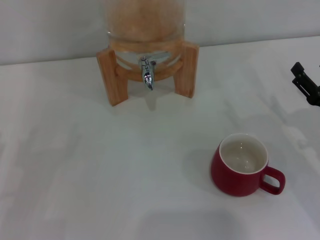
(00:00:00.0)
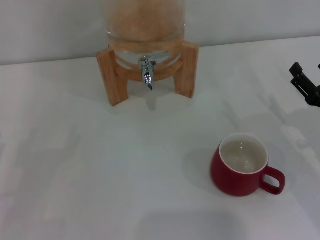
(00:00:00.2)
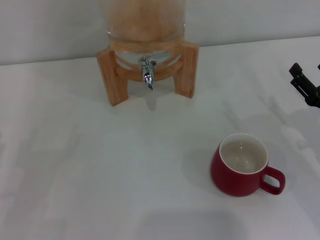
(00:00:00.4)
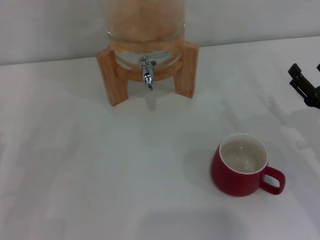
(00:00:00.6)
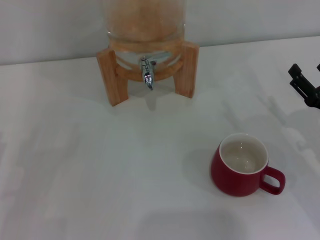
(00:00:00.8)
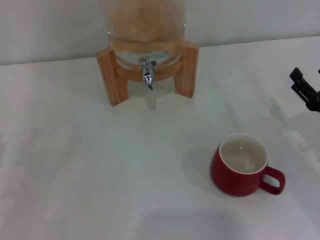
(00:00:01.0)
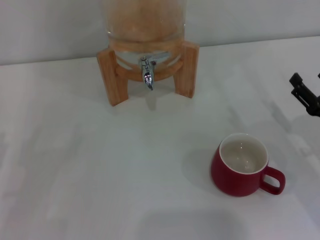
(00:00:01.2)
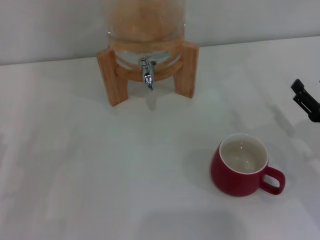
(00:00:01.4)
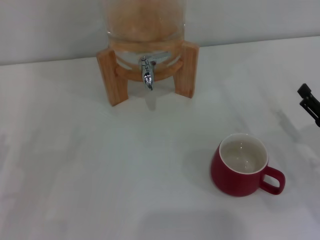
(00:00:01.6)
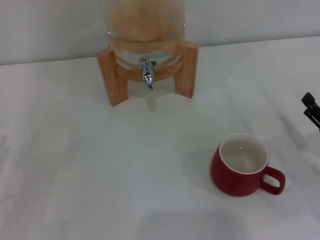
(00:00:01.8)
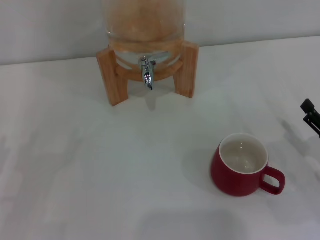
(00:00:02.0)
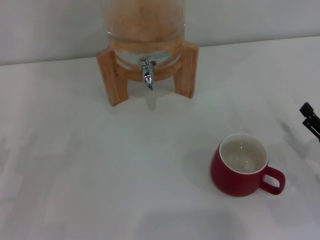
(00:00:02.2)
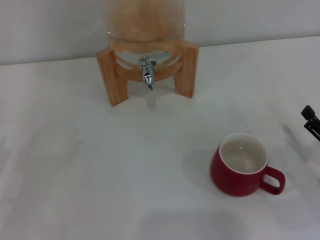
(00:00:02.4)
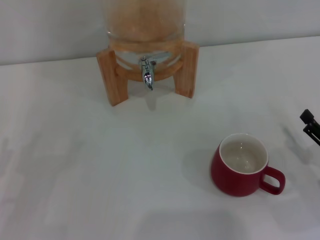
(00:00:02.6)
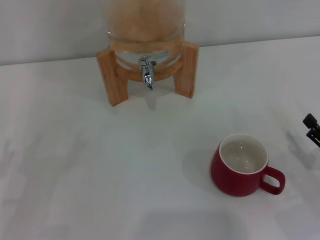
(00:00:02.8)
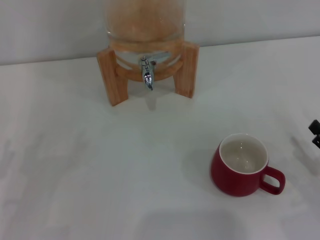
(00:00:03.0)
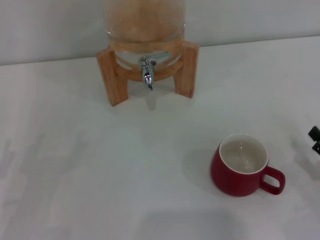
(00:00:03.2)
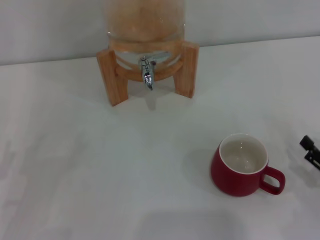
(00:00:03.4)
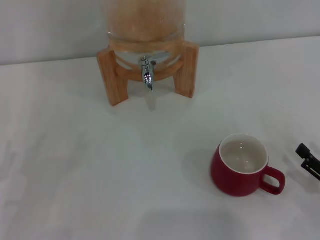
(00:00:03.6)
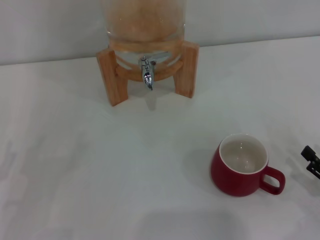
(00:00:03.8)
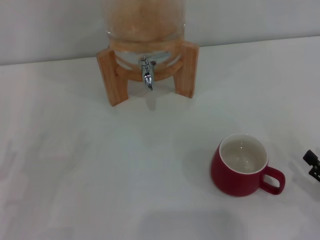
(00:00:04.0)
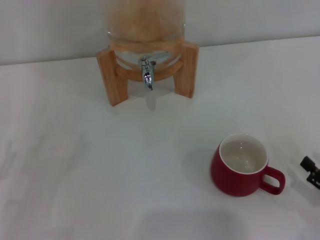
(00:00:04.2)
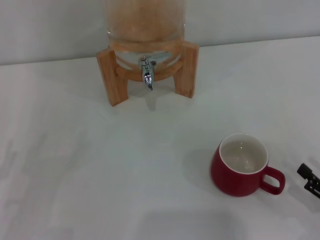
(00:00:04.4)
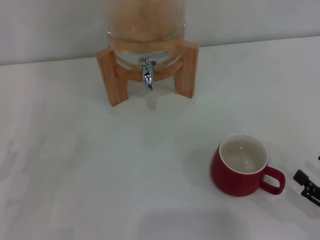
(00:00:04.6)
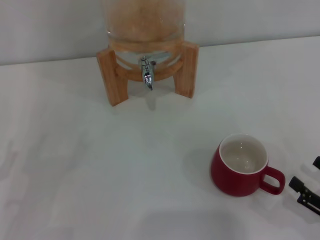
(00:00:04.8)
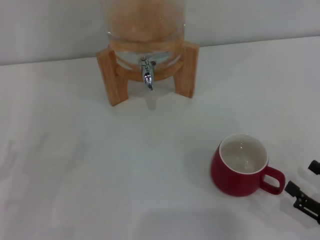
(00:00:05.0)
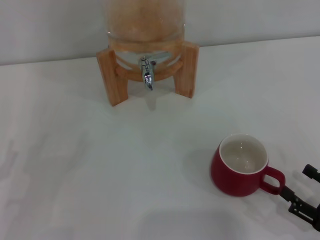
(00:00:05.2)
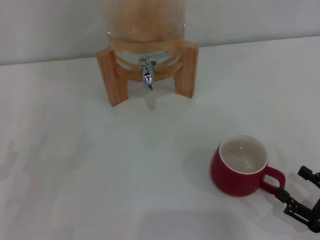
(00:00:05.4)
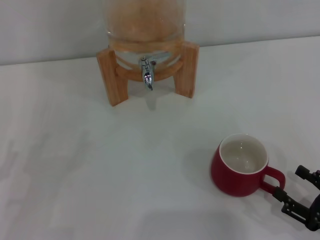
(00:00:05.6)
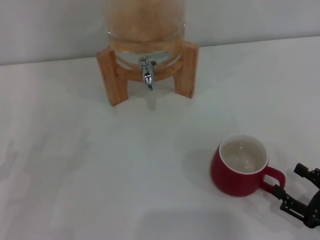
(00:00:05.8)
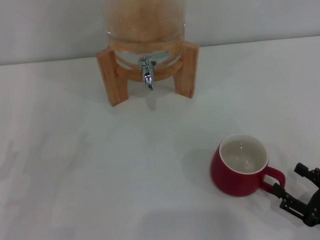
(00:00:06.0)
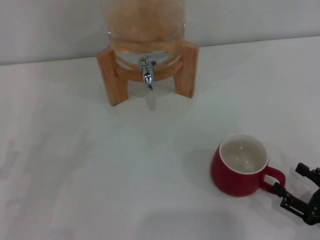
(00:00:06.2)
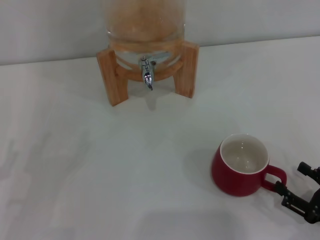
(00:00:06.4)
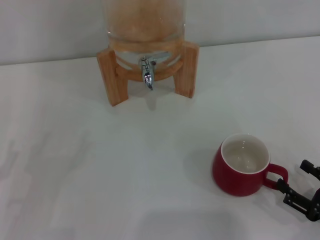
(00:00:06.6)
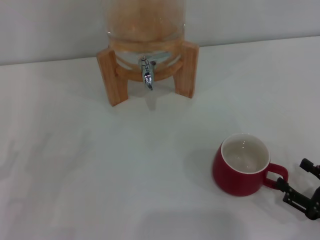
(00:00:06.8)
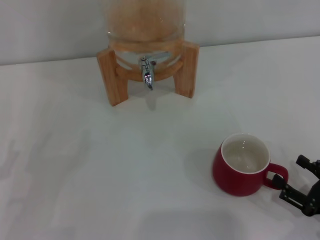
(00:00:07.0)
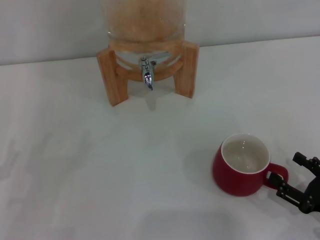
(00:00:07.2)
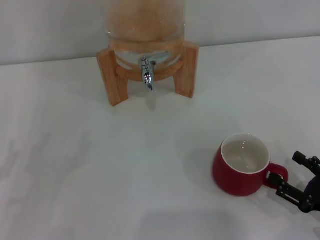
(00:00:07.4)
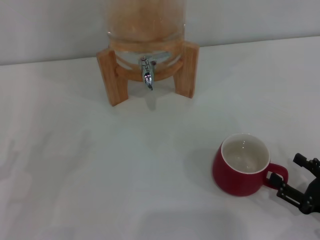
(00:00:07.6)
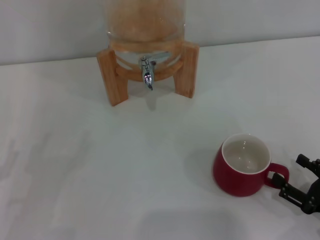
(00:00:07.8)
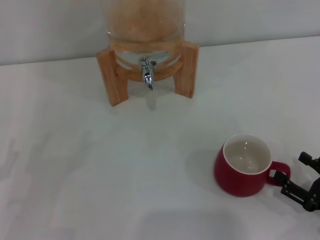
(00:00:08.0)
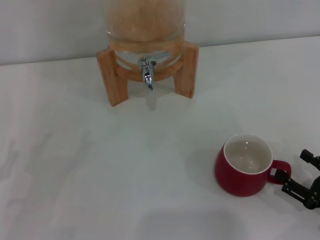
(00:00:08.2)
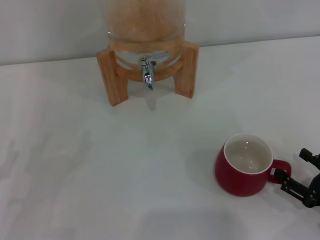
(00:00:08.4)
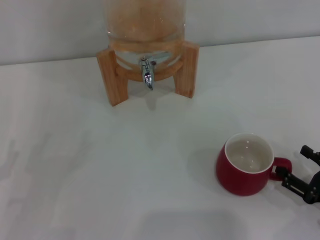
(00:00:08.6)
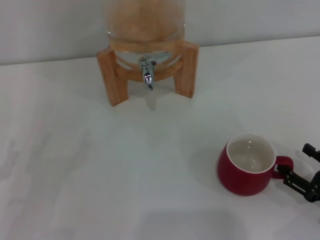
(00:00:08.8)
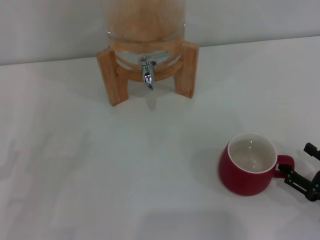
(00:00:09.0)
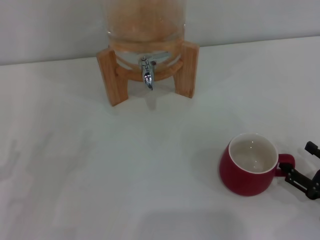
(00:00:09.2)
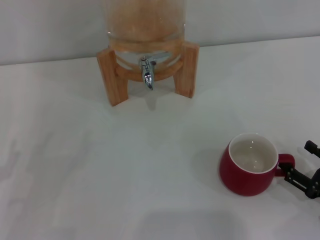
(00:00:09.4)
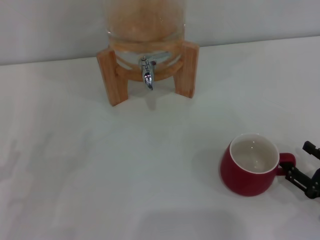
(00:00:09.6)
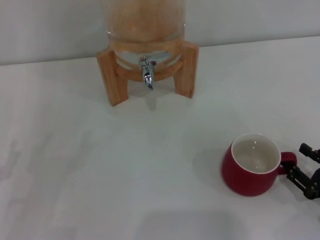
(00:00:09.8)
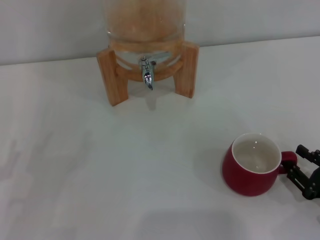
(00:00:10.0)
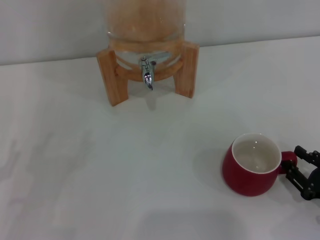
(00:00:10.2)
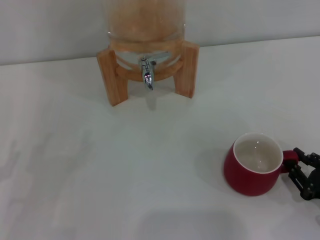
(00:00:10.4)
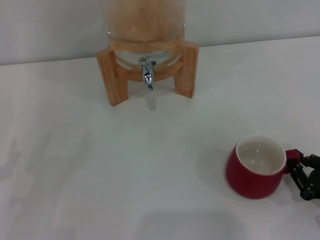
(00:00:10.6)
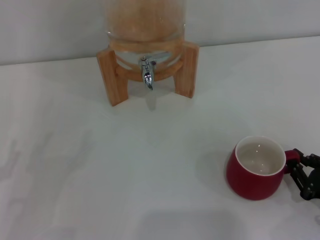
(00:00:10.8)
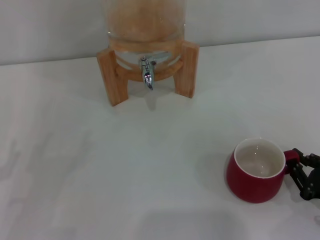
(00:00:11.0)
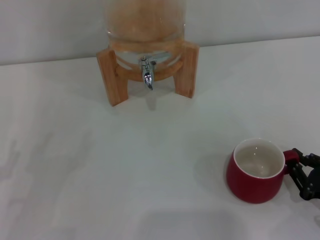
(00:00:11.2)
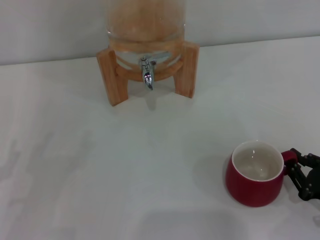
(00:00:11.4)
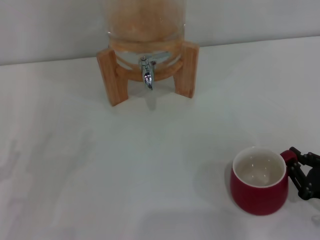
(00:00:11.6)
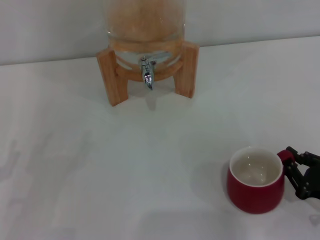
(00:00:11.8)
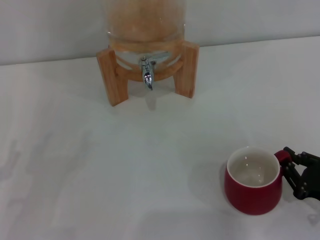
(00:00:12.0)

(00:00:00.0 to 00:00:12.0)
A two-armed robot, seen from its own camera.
Task of the whole recording: the right gripper pick up the red cup and place it horizontally under the faucet, the left gripper turn on the faucet to fill the cup, and then turn off the faucet.
00:00:00.0 - 00:00:01.6: The grippers make only small movements.
00:00:01.6 - 00:00:03.0: The right gripper heads backward, covering some 5 cm.
00:00:03.0 - 00:00:04.4: The grippers make only small movements.
00:00:04.4 - 00:00:09.0: The grippers move only a little.
00:00:09.0 - 00:00:10.4: The right gripper closes up.
00:00:10.4 - 00:00:12.0: The right gripper closes.

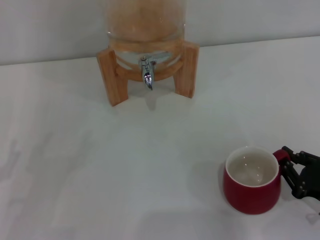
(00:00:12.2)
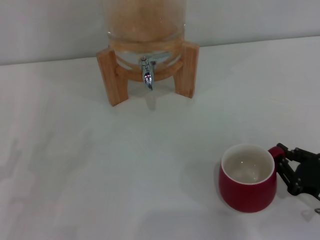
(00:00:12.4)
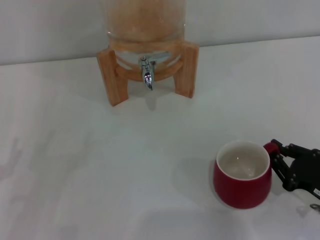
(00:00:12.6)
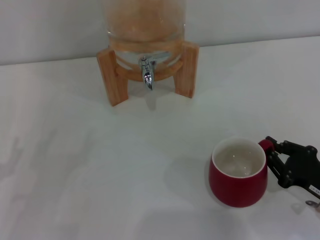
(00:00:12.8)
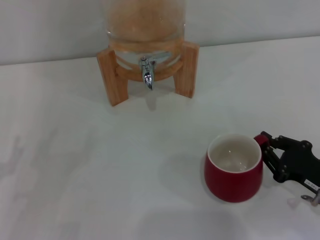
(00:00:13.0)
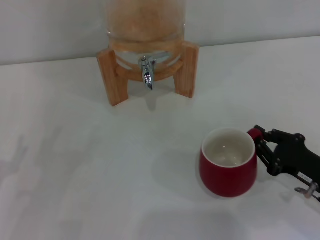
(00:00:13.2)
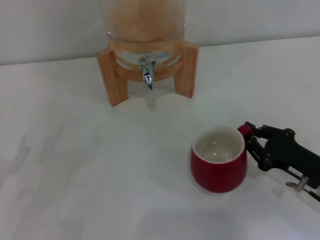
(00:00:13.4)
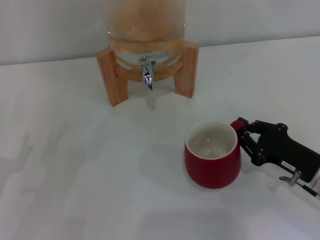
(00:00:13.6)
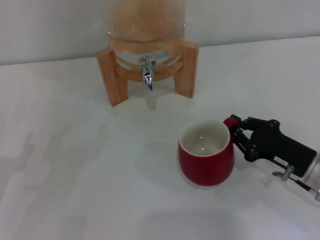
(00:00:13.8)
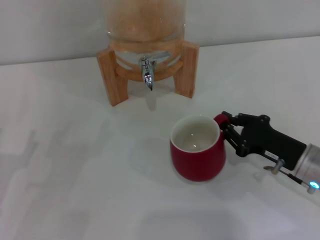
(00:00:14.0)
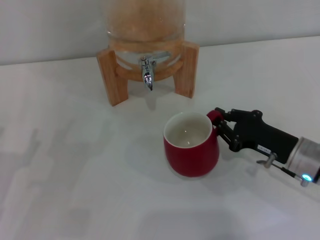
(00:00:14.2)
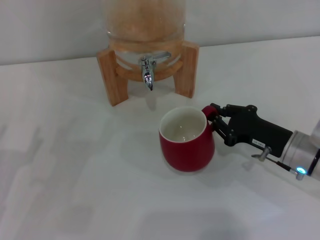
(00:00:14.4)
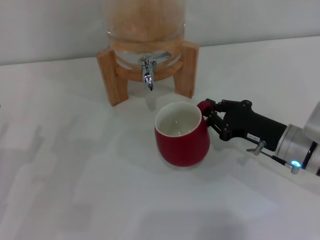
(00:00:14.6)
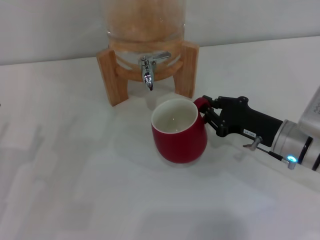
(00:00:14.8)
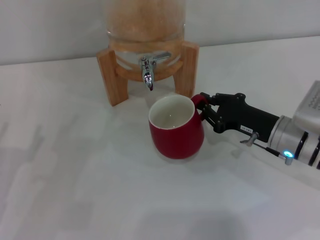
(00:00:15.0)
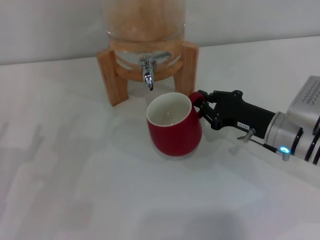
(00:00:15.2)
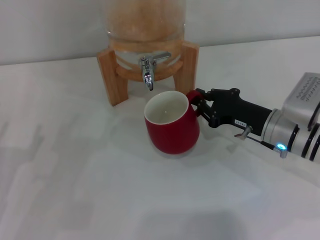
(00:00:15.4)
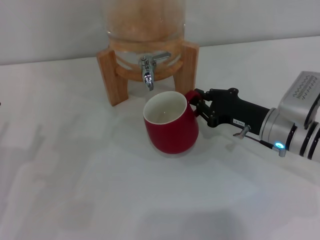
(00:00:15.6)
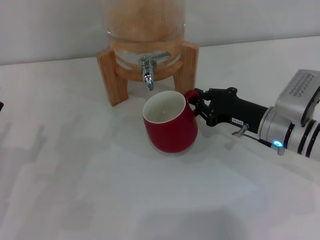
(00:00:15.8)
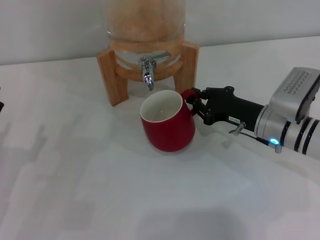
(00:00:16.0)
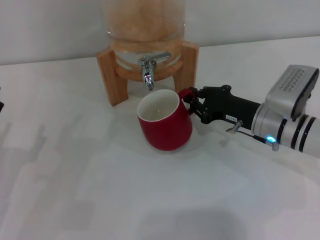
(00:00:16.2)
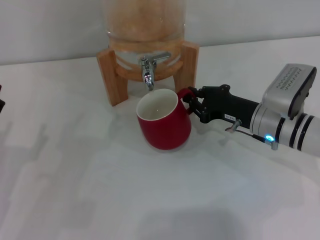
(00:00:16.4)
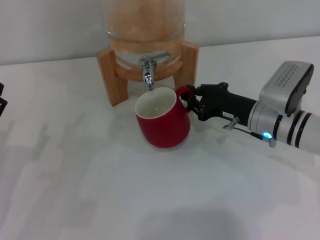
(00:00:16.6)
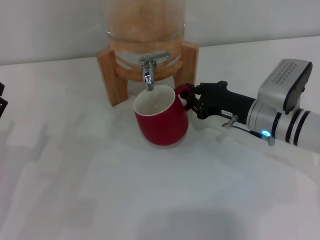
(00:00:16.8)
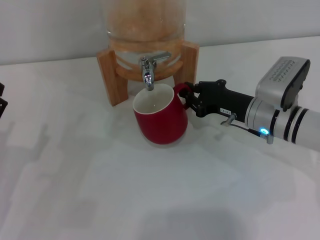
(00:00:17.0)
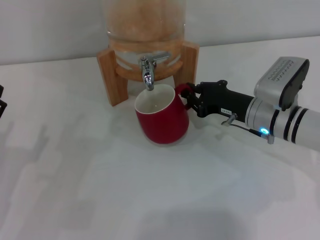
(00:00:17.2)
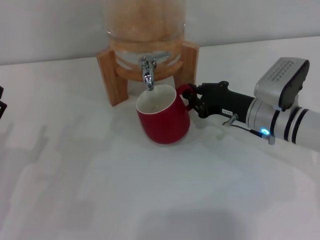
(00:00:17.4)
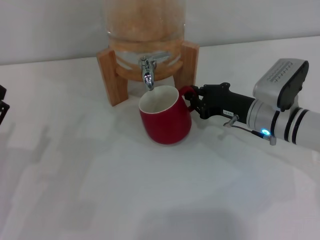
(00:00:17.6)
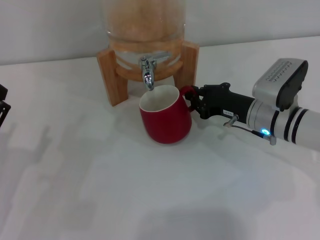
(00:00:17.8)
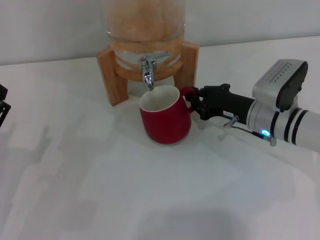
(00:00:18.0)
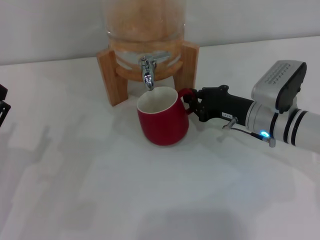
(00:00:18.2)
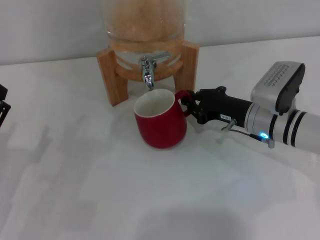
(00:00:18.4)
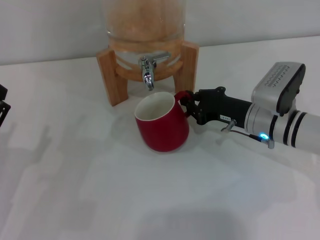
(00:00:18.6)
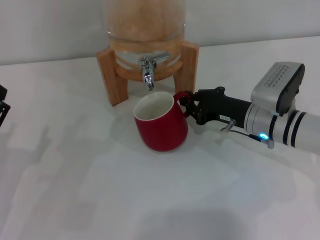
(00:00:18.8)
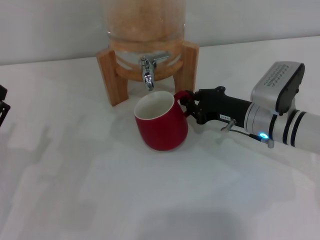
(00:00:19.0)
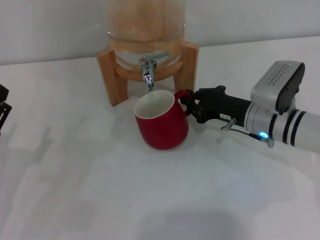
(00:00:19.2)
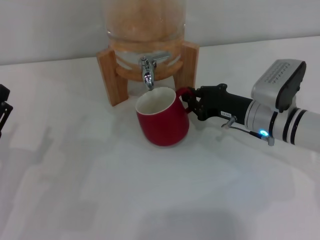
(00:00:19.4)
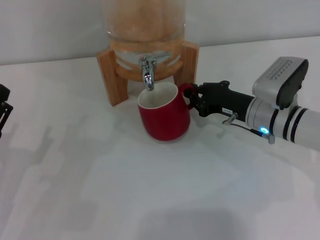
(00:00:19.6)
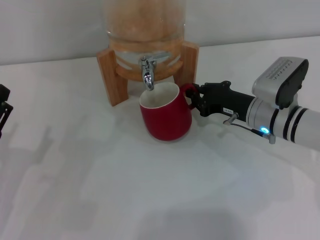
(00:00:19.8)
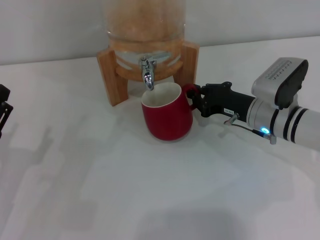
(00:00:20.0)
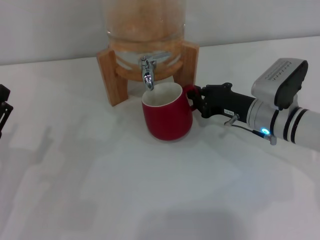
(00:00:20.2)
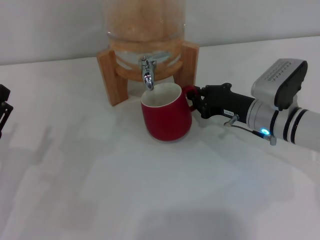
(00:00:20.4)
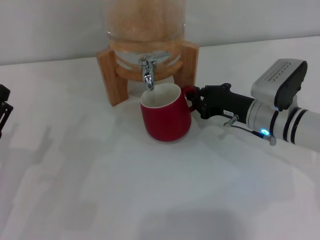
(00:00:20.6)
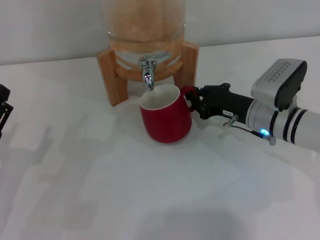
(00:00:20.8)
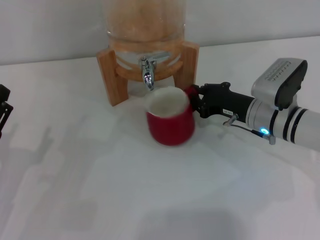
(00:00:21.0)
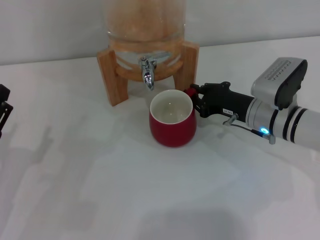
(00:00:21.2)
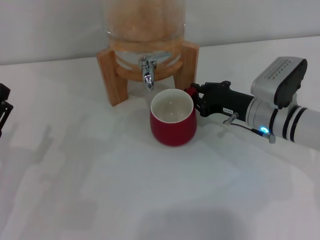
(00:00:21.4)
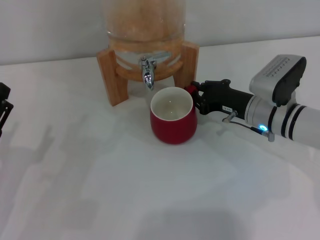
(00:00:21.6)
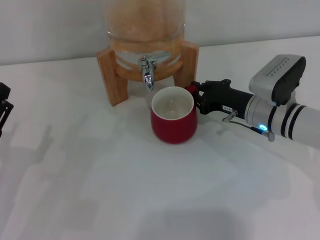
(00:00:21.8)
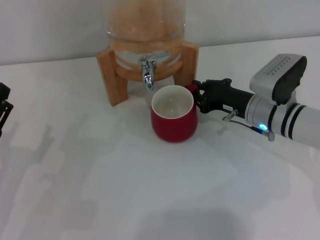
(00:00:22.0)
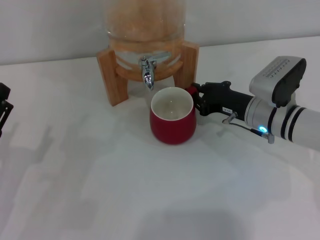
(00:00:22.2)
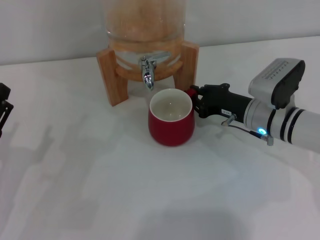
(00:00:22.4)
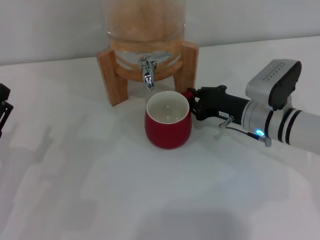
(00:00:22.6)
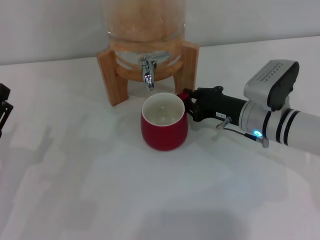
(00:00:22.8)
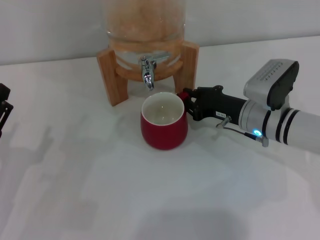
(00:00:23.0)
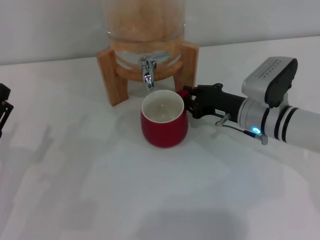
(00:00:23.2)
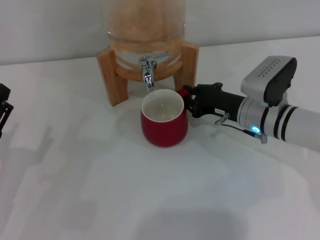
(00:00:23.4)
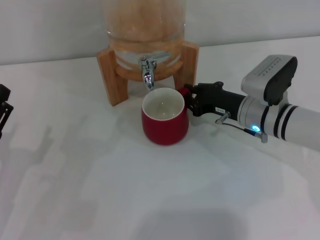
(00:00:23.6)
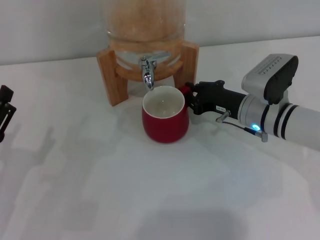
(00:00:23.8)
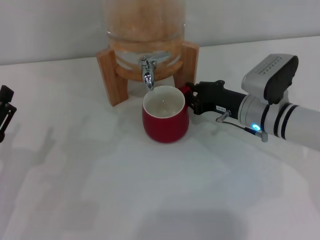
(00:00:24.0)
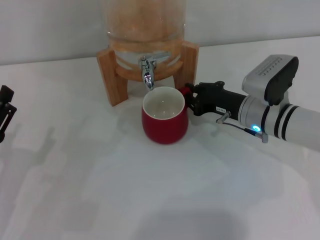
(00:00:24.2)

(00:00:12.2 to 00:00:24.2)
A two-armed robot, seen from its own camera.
Task of the whole recording: the right gripper pick up the red cup and place it horizontally under the faucet, the left gripper turn on the faucet to fill the cup, and then turn off the faucet.
00:00:12.2 - 00:00:13.8: The right gripper heads forward, covering roughly 10 cm.
00:00:13.8 - 00:00:15.2: The right gripper goes roughly 5 cm forward.
00:00:15.2 - 00:00:18.2: There are only small adjustments of the grippers.
00:00:18.2 - 00:00:22.6: Both grippers stay put.
00:00:22.6 - 00:00:24.2: The two grippers keep their place.
